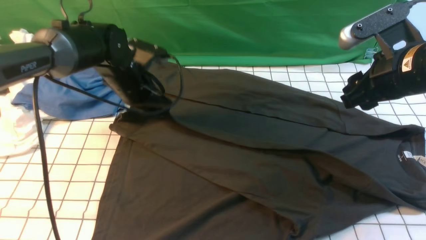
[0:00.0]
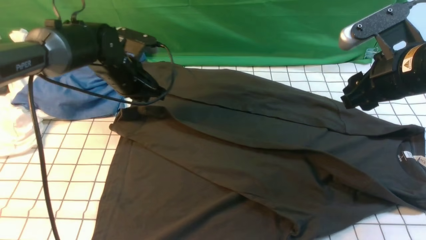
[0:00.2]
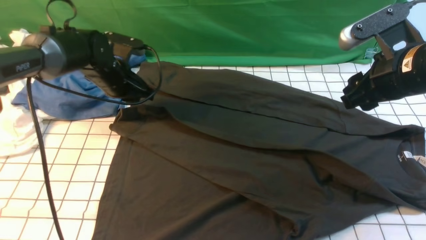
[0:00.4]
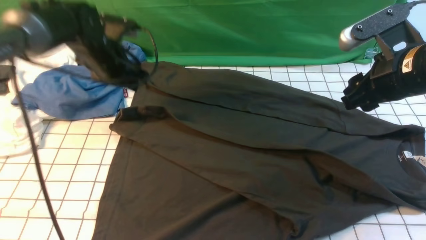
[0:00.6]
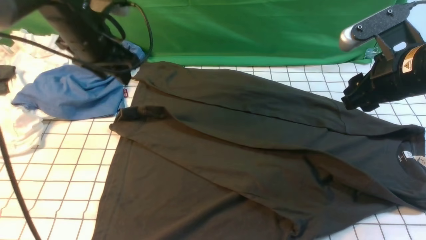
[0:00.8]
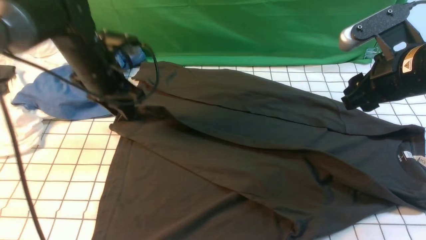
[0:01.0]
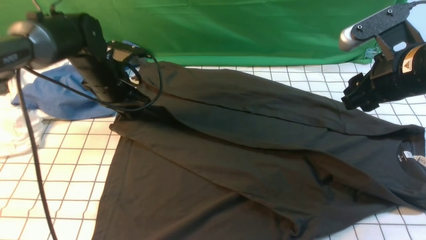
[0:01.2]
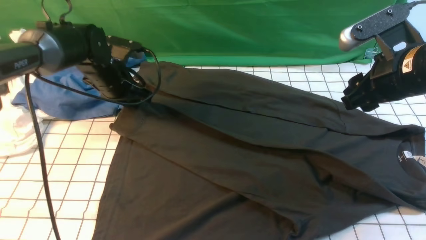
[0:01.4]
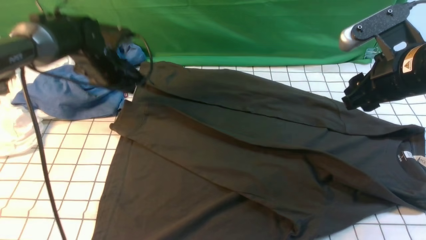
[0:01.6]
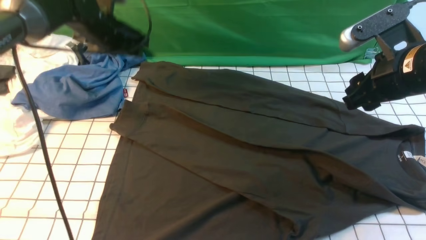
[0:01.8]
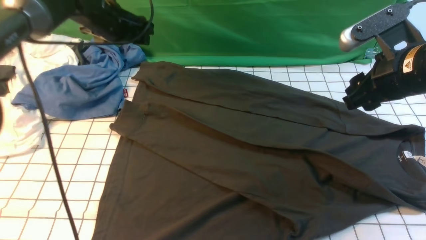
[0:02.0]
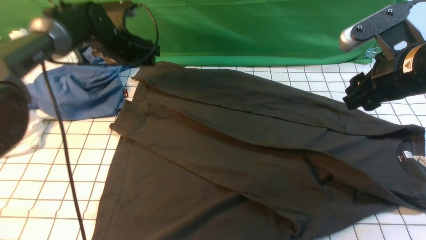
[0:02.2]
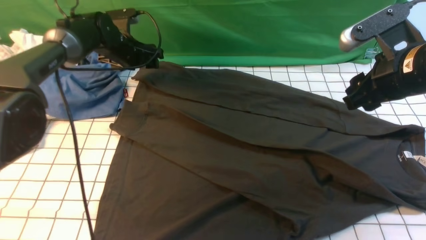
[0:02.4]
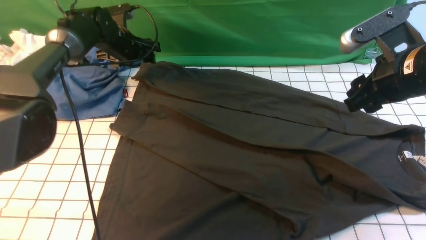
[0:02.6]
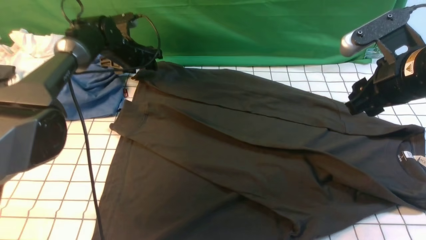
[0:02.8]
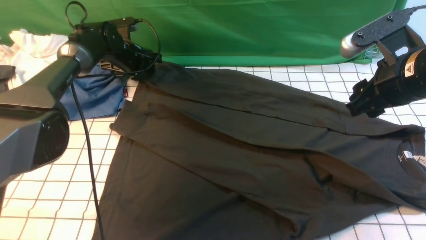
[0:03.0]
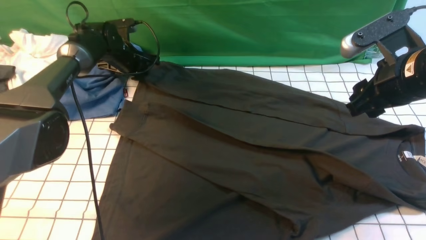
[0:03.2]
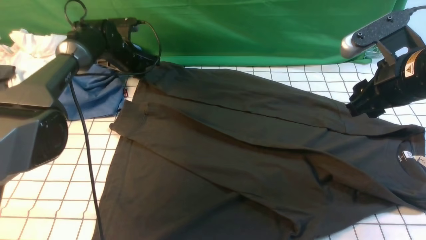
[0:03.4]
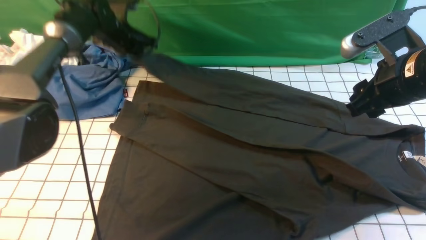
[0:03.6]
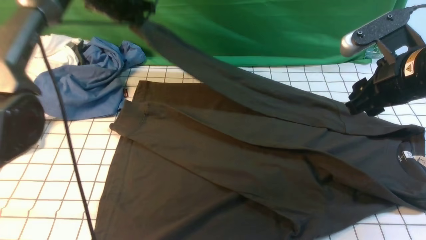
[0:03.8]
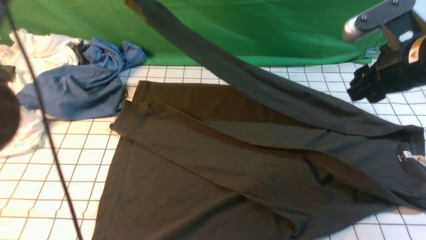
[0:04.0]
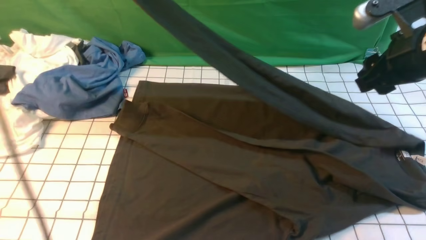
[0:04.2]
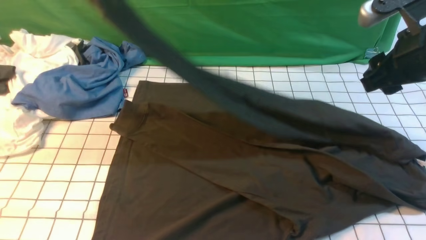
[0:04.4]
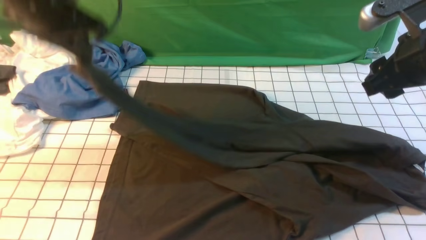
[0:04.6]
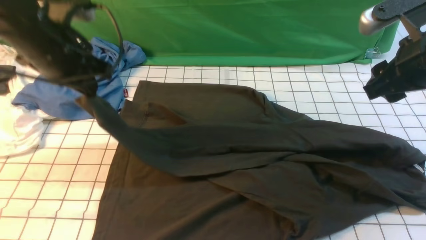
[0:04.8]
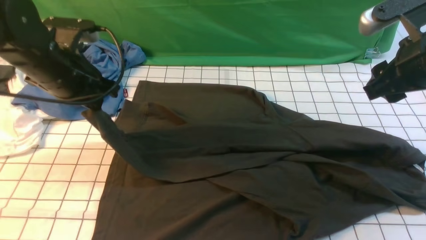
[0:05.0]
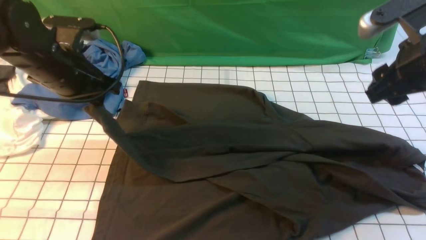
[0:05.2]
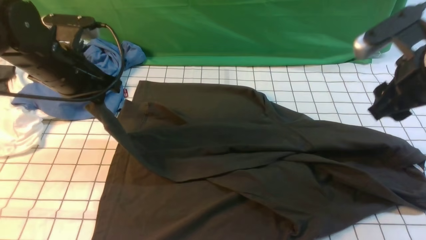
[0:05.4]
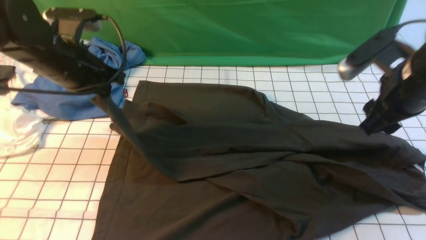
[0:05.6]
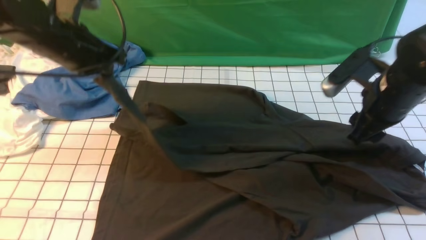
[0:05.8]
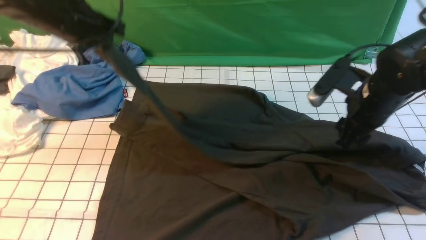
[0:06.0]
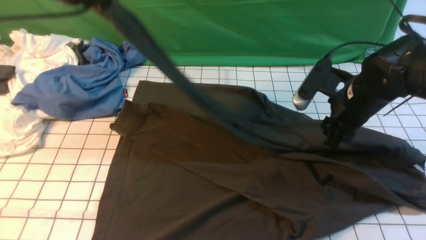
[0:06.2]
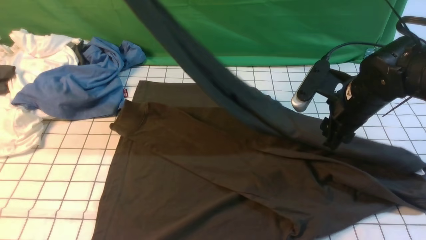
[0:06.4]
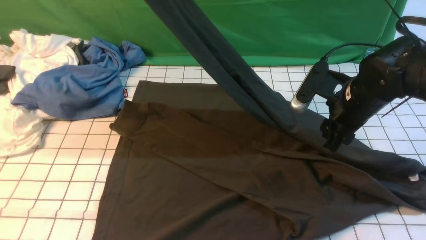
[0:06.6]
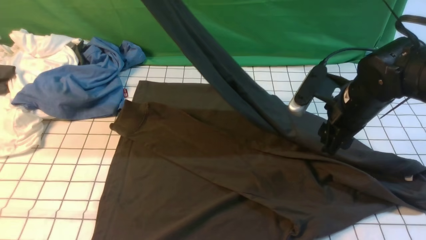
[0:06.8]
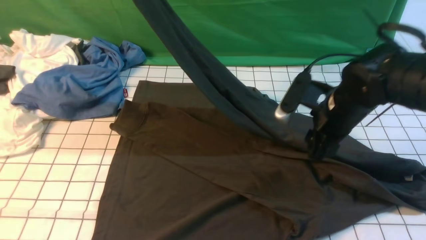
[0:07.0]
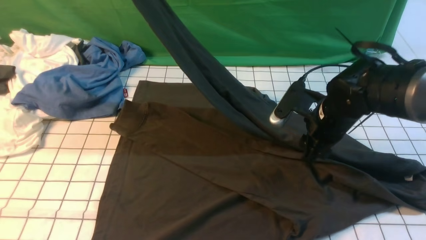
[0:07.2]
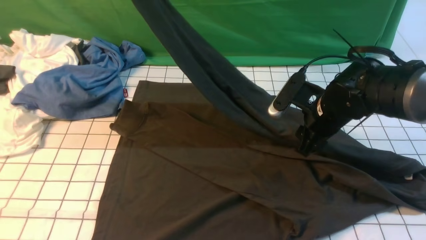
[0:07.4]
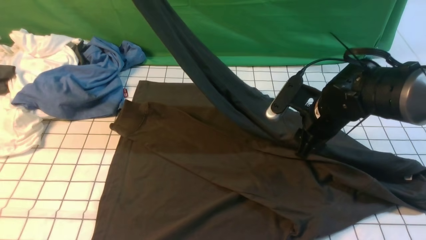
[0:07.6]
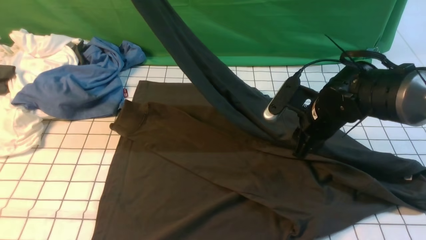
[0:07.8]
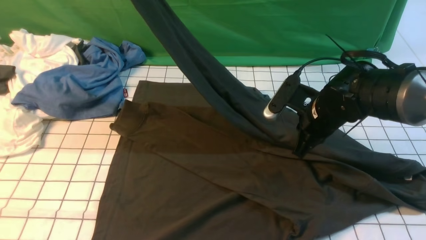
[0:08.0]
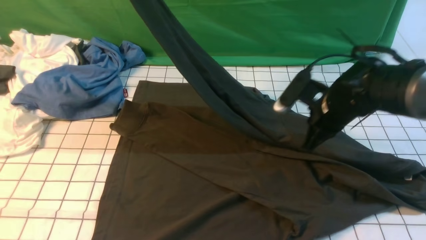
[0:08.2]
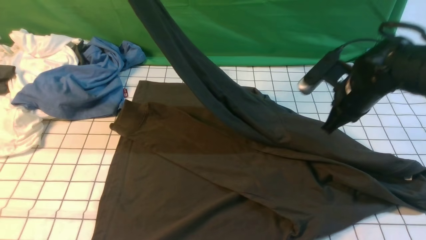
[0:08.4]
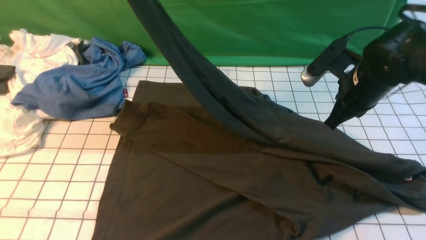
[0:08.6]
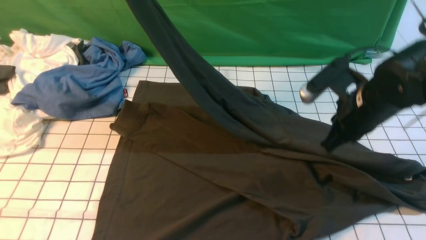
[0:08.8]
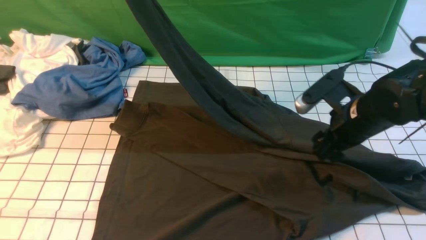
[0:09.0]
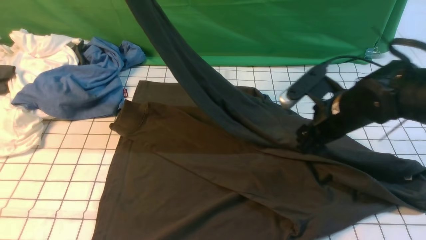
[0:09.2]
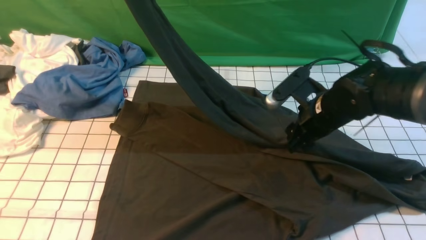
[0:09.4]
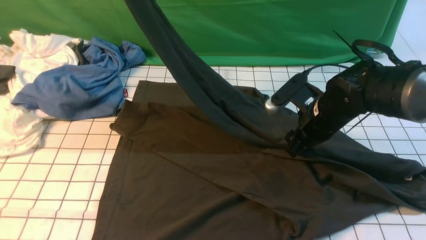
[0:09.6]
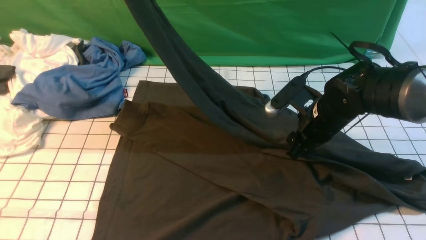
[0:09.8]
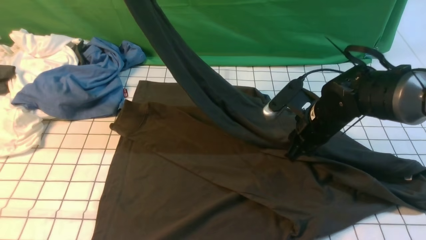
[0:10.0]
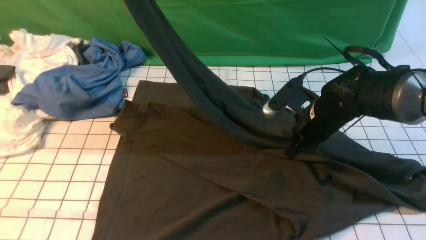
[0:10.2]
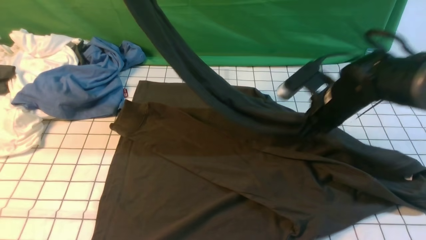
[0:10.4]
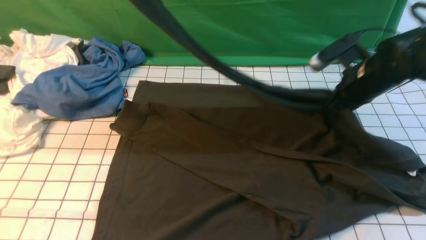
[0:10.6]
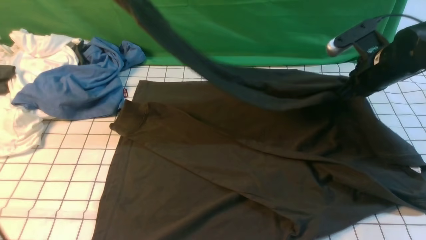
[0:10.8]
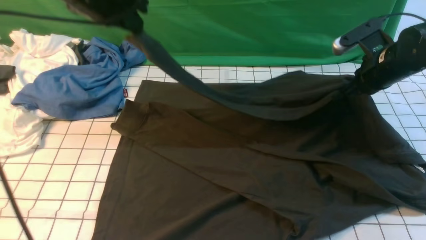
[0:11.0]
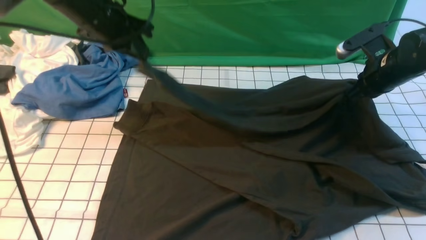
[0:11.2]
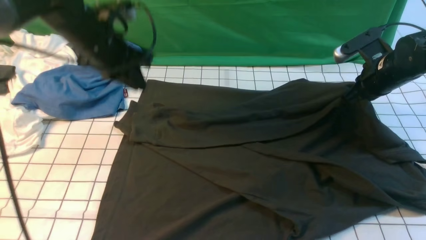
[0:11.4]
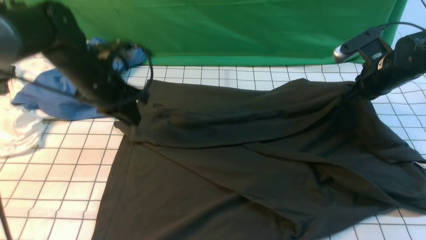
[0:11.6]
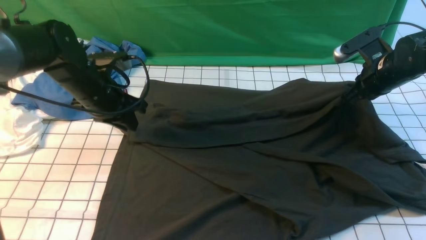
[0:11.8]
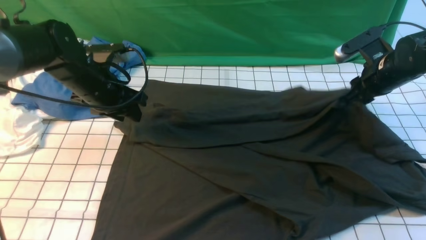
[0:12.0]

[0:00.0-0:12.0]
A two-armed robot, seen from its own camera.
Step, 0:01.6 to 0:03.2: use the left arm to clamp the cuff farthest from it.
0:00.0 to 0:01.6: The left gripper changes place by roughly 5 cm, and opens up.
0:01.6 to 0:03.0: The left gripper goes some 10 cm forward and downward.
0:03.0 to 0:04.4: The left gripper goes about 30 cm upward and backward, and closes.
0:04.4 to 0:06.0: The right gripper heads downward, covering approximately 10 cm. Meanwhile the left gripper shifts roughly 5 cm downward.
0:06.0 to 0:07.6: The right gripper goes some 5 cm to the left, while the left gripper moves upward, roughly 10 cm.
0:07.6 to 0:09.0: The right gripper closes and opens again.
0:09.0 to 0:10.4: The right gripper moves forward, roughly 5 cm, and closes its fingers.
0:10.4 to 0:12.0: The left gripper shifts some 25 cm downward, and opens up; the right gripper shifts about 10 cm to the right, and opens.

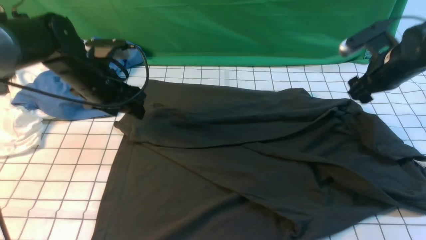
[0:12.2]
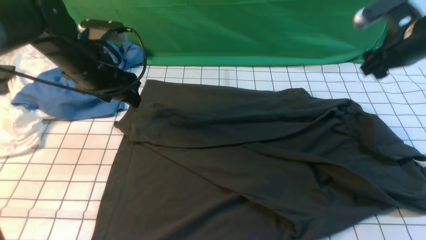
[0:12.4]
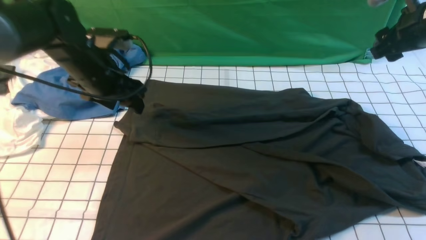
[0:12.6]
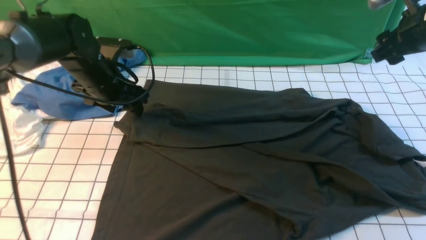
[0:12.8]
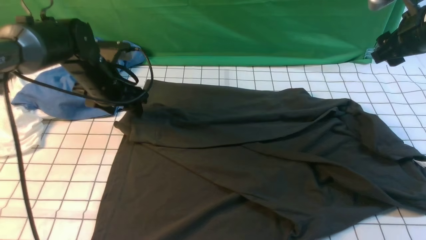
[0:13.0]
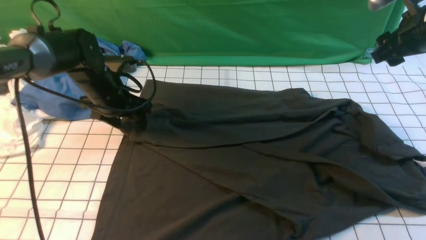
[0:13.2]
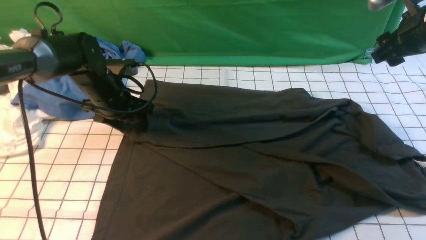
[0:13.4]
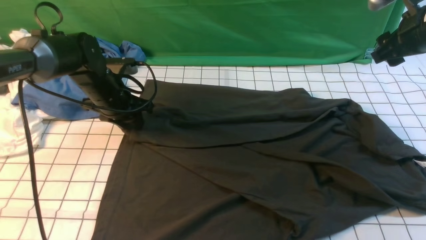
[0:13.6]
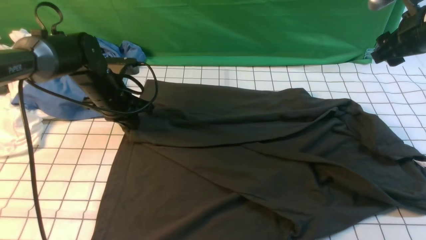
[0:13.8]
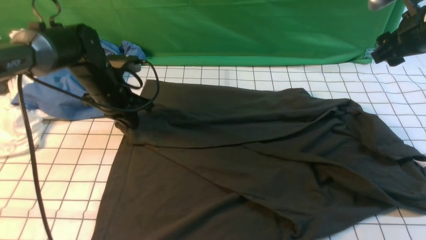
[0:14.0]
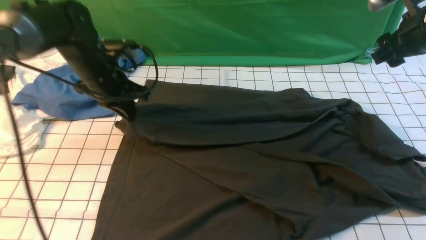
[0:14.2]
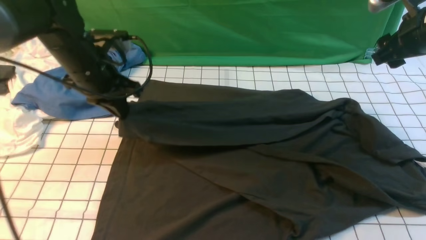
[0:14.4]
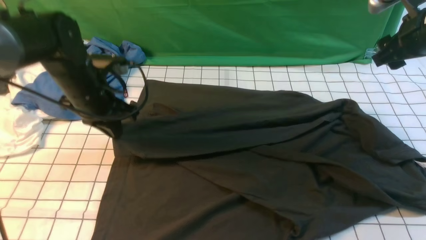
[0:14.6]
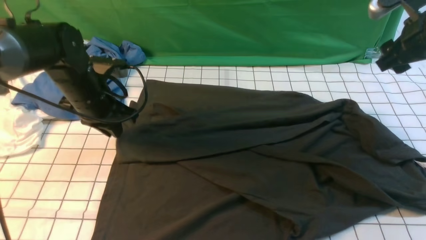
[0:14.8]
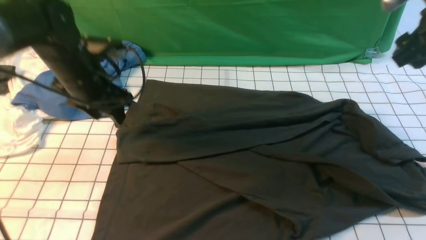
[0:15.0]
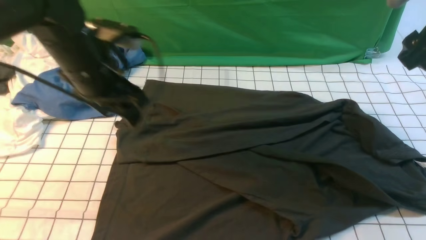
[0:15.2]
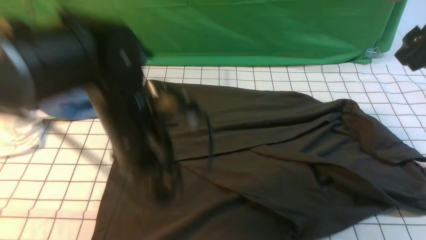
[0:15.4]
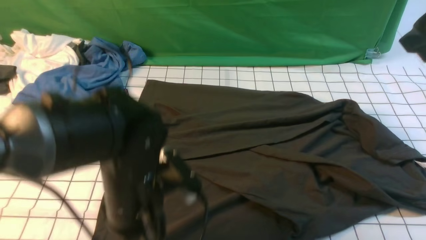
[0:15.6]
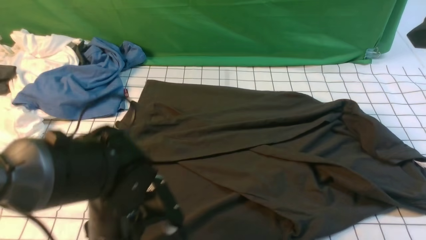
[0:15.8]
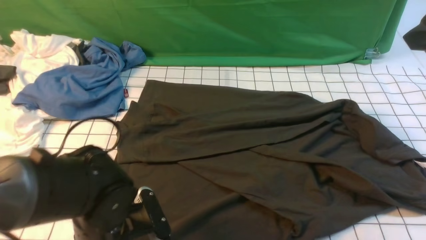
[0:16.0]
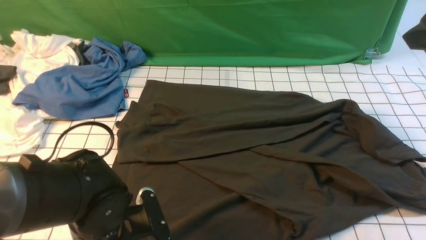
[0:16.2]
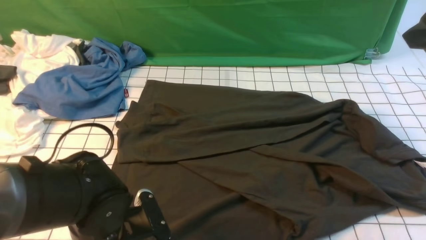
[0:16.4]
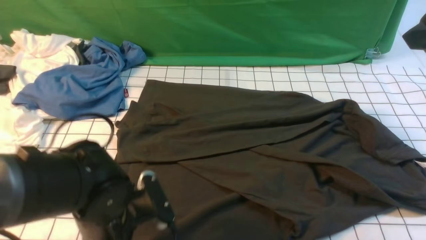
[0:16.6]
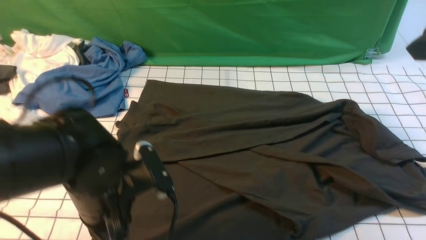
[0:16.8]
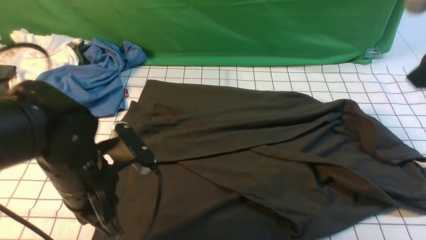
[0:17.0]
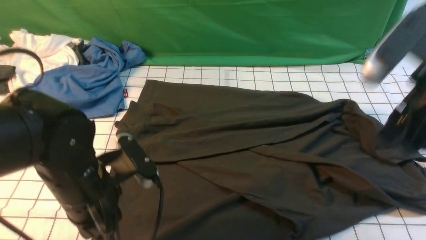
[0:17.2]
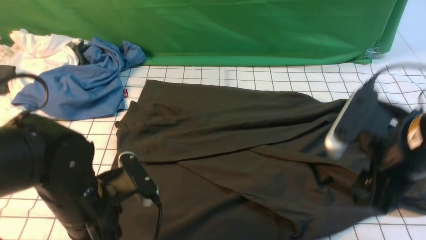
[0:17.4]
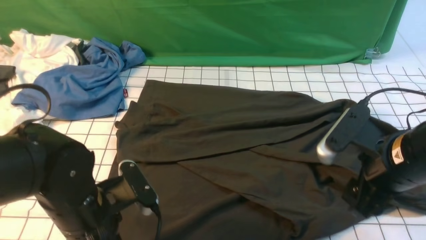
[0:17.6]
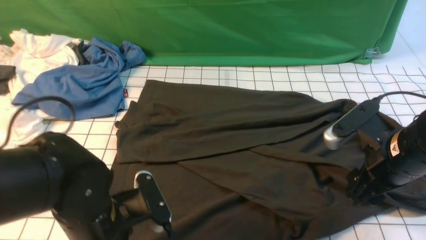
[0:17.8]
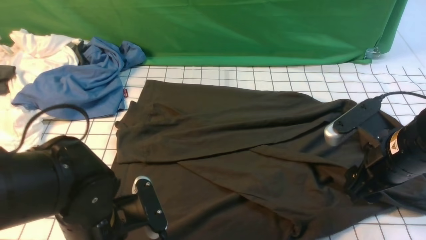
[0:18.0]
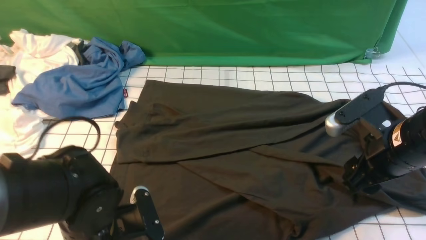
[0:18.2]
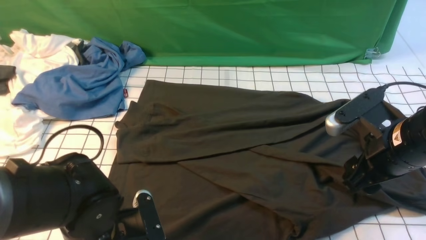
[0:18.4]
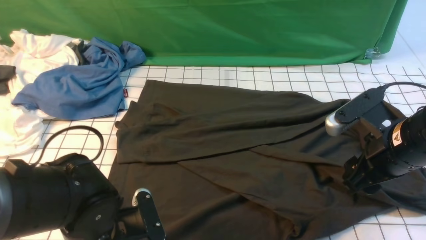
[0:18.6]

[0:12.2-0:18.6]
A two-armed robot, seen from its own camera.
Step, 0:12.2 to 0:14.8: use the left arm to drag and drop the cuff onto the cuff closest to the left arm.
0:12.2 to 0:13.8: The left gripper moves downward, about 5 cm, and closes its fingers. Meanwhile the right gripper is displaced upward by some 5 cm.
0:13.8 to 0:15.4: The left gripper goes approximately 20 cm backward, to the right and upward, and opens, while the right gripper heads backward and upward, covering approximately 15 cm.
0:15.4 to 0:17.0: The left gripper shifts roughly 5 cm backward, reaches roughly 10 cm downward, then returns, and closes up; the right gripper moves some 5 cm.
0:17.0 to 0:18.6: The left gripper is displaced downward by roughly 5 cm, and opens up, while the right gripper is displaced downward by some 15 cm.
